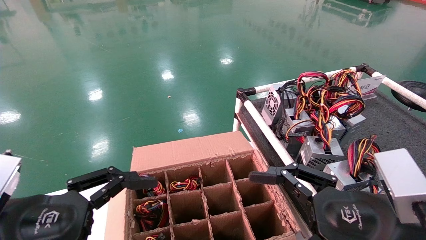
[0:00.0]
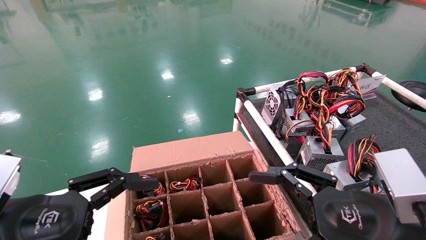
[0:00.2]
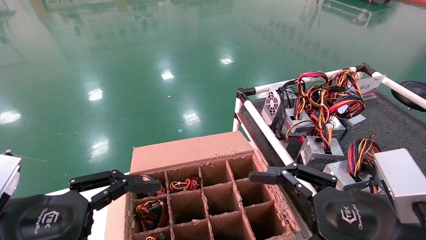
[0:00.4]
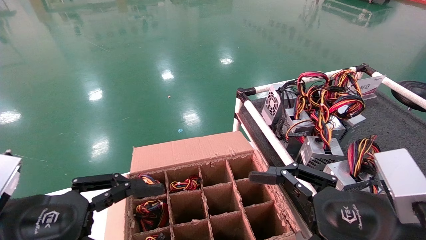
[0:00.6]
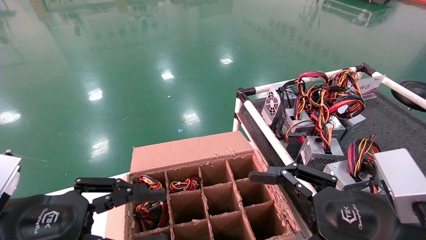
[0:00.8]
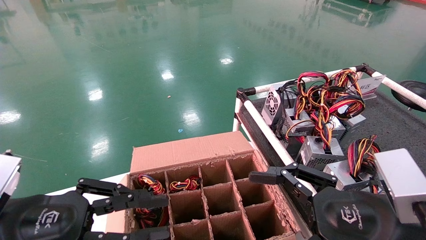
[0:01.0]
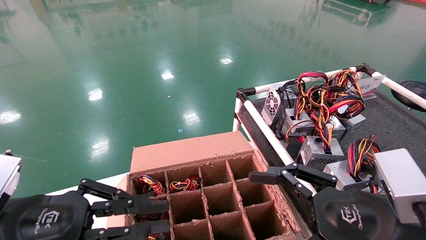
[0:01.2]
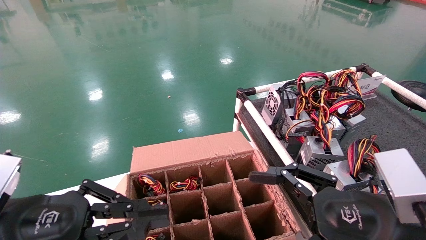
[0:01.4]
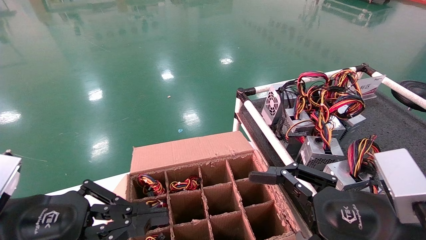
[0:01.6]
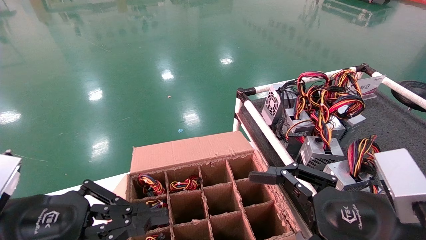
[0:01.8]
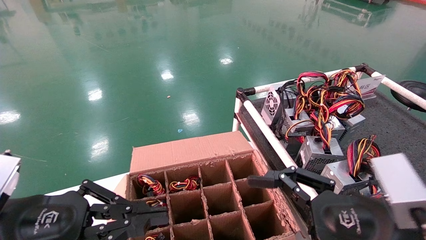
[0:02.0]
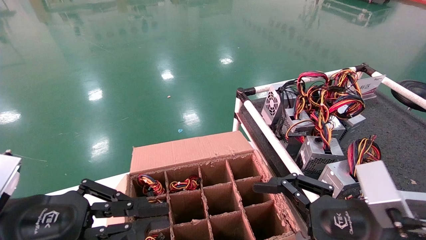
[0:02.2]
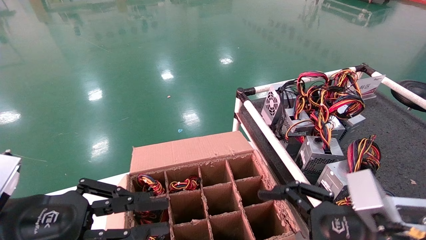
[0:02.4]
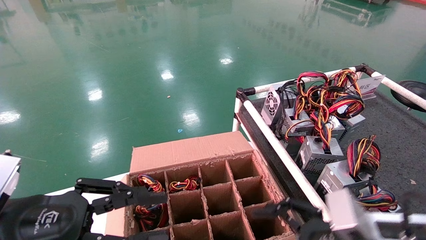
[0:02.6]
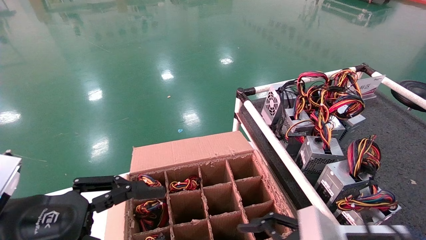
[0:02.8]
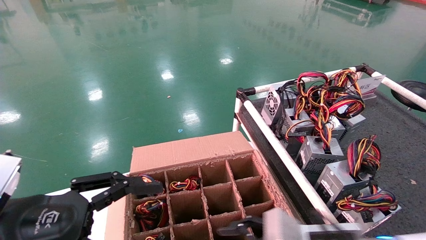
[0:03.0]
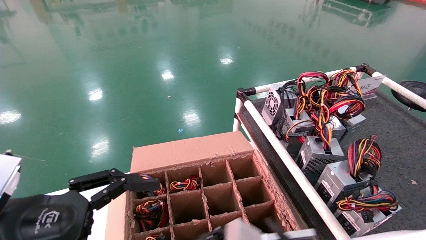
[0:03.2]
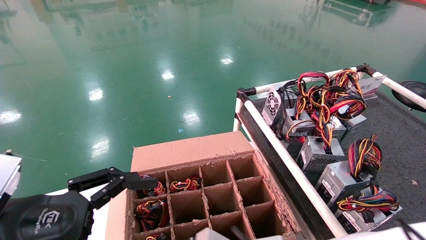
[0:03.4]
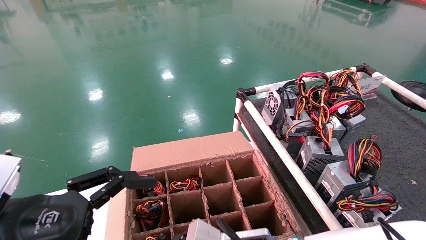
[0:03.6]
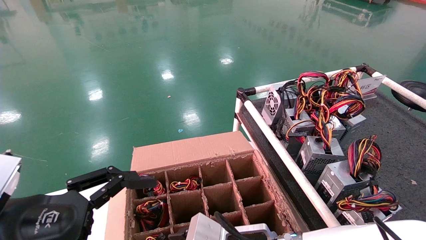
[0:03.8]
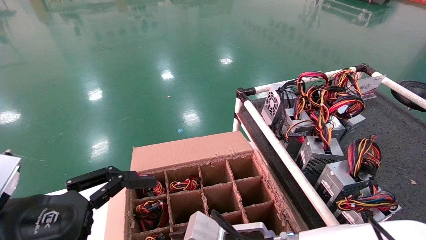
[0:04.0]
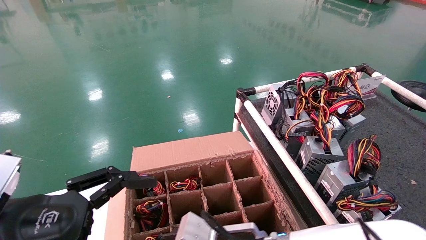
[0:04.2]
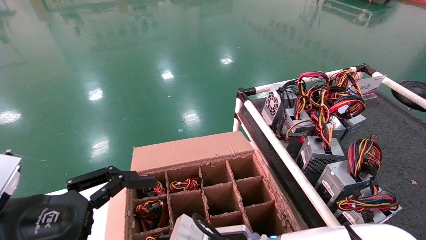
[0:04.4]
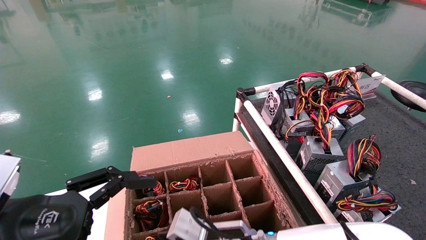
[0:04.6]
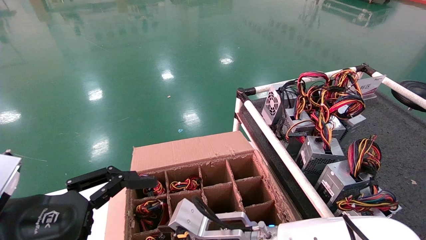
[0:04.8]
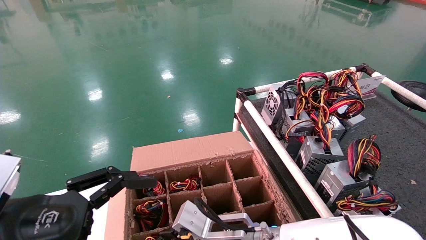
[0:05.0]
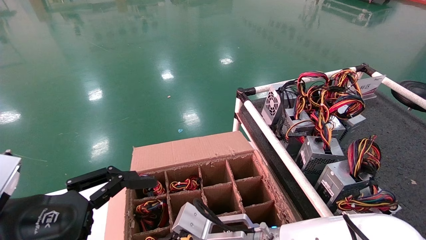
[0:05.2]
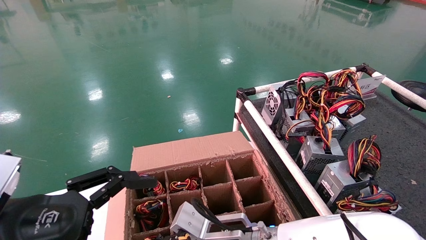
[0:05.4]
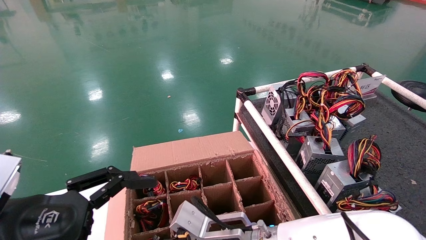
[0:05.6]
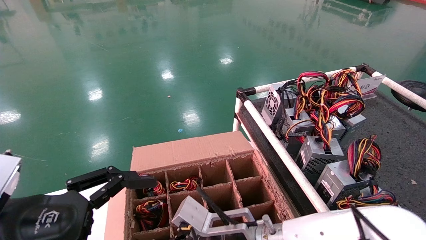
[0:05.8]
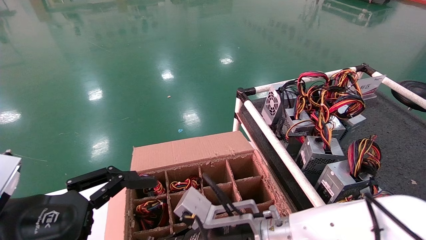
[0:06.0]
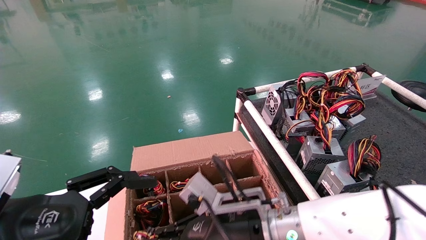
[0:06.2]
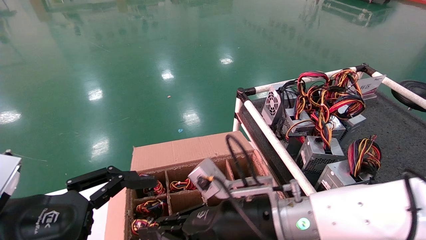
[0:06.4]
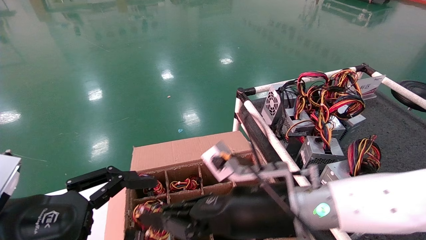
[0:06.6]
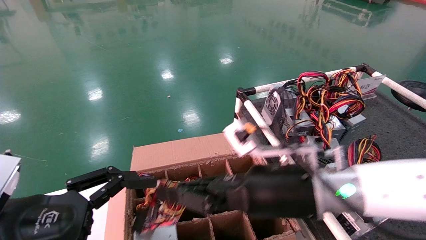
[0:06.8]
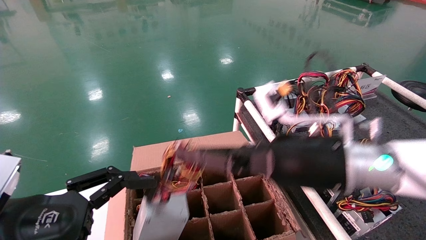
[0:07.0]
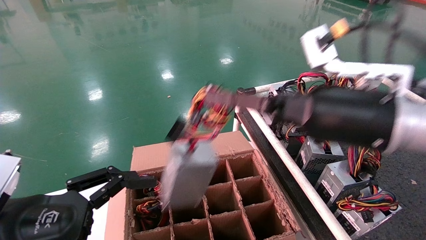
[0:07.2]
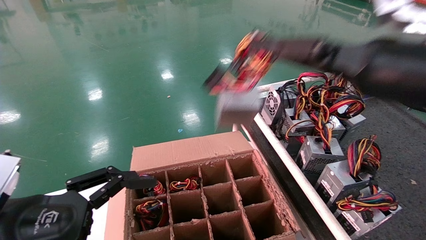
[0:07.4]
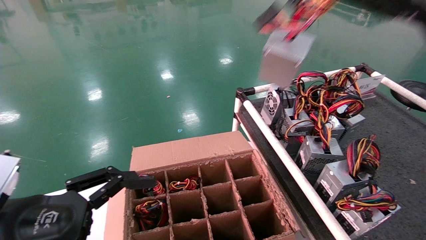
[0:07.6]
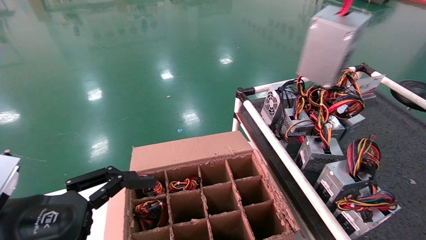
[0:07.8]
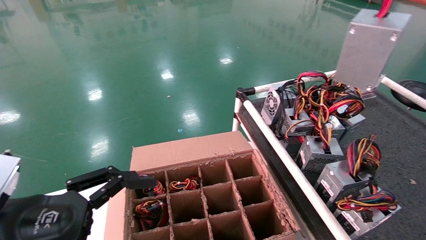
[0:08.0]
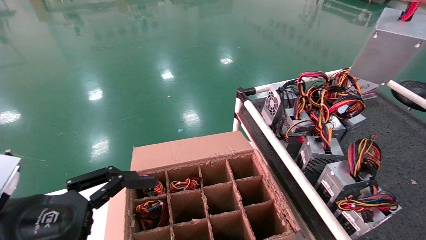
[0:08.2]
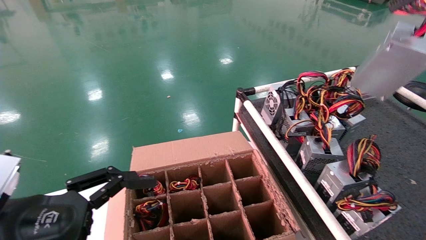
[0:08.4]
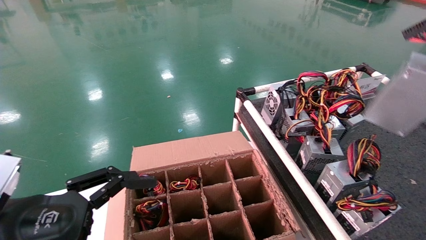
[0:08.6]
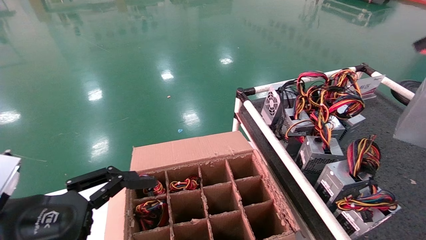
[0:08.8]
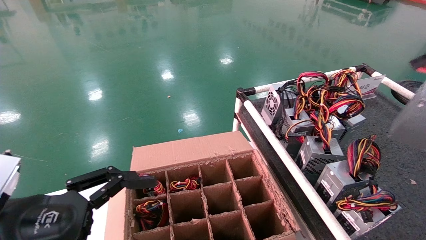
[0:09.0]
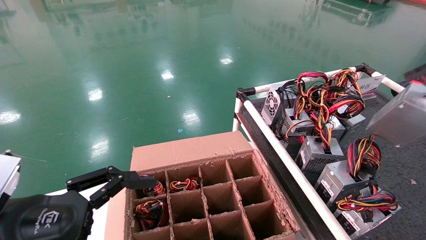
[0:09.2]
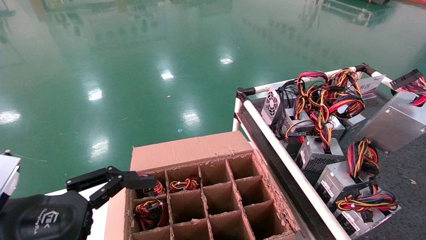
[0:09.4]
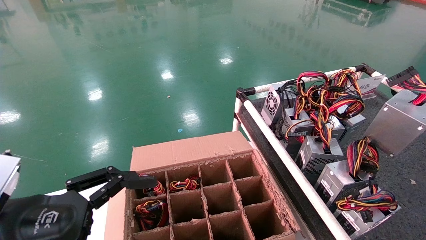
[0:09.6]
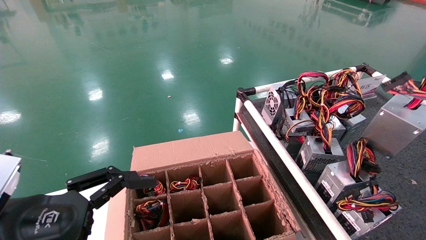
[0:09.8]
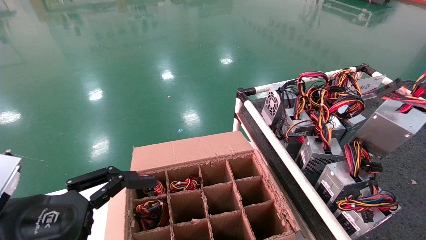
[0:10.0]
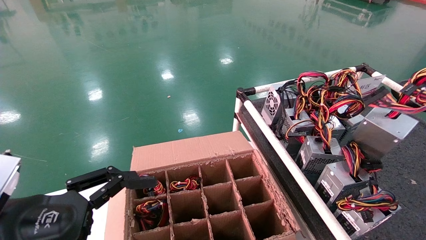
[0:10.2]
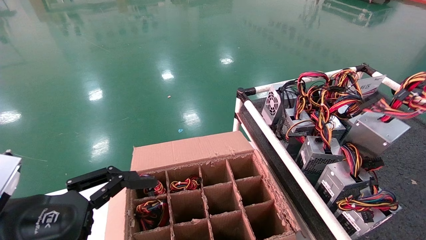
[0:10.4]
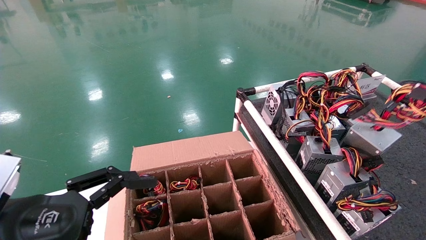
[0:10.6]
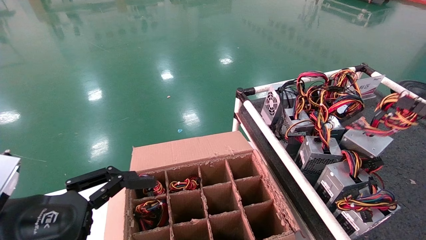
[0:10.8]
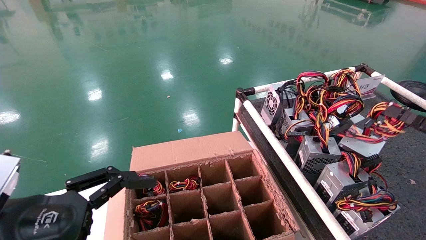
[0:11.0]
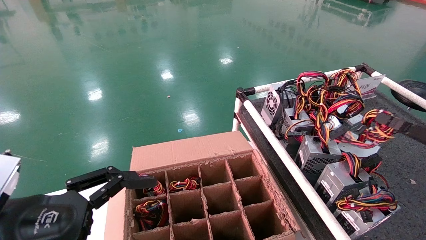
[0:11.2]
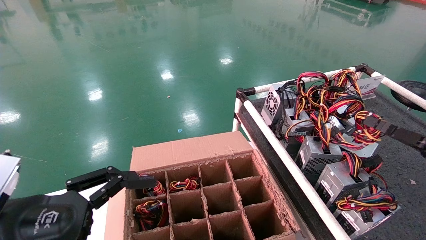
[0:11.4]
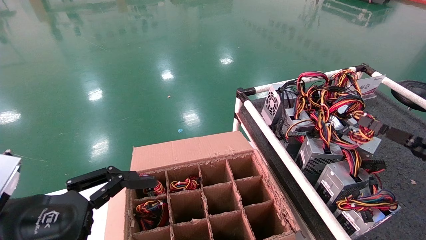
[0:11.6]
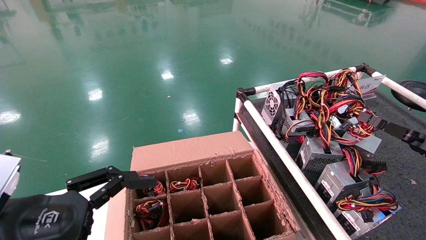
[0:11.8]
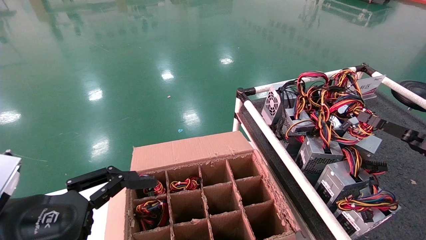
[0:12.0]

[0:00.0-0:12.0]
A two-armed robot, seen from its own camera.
Step, 0:02.4 to 0:05.6: Grab and lift the power supply from the large box.
0:00.0 to 0:01.6: The left gripper closes.
0:01.6 to 0:03.0: The left gripper opens, while the right gripper heads downward, to the left and forward, covering approximately 15 cm.
0:03.0 to 0:04.4: The right gripper goes about 15 cm to the left and forward; the left gripper opens up.
0:04.4 to 0:06.0: The right gripper closes its fingers.
0:06.0 to 0:07.6: The right gripper moves upward and to the right, about 40 cm.
0:07.6 to 0:09.0: The right gripper shifts some 25 cm to the right and downward.
0:09.0 to 0:10.4: The right gripper is displaced forward and downward by roughly 10 cm.
0:10.4 to 0:12.0: The right gripper heads forward and downward, covering approximately 10 cm.

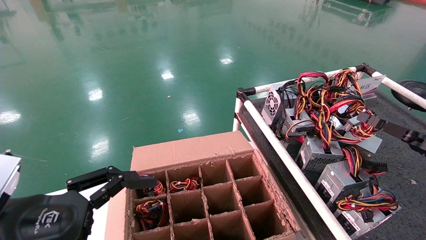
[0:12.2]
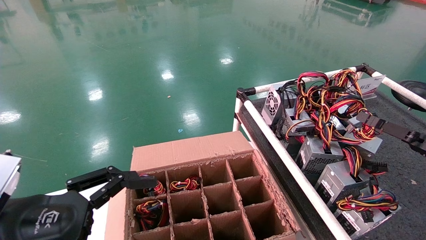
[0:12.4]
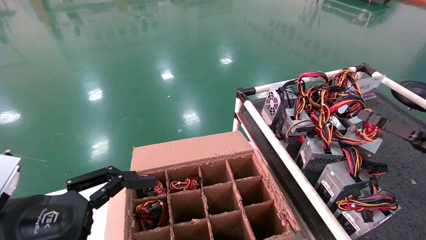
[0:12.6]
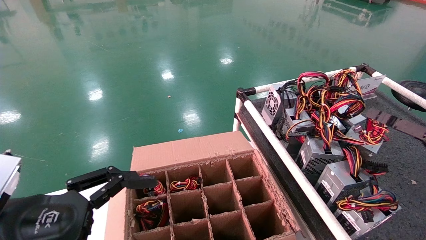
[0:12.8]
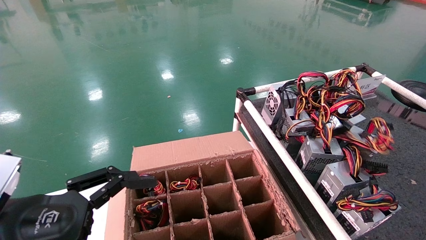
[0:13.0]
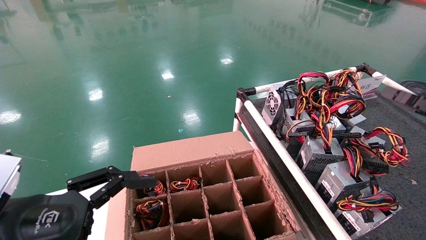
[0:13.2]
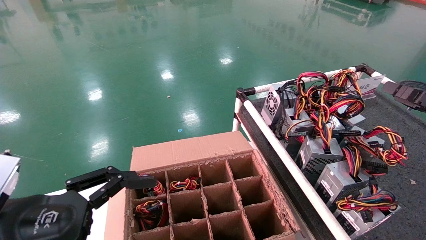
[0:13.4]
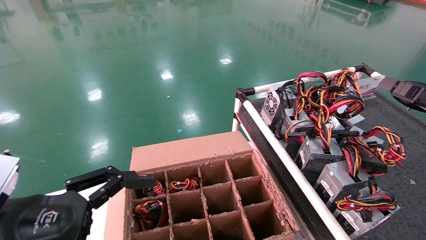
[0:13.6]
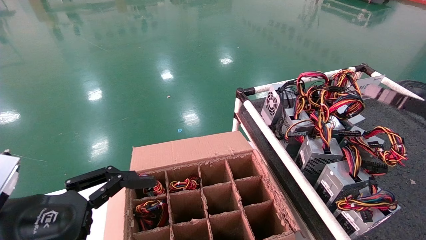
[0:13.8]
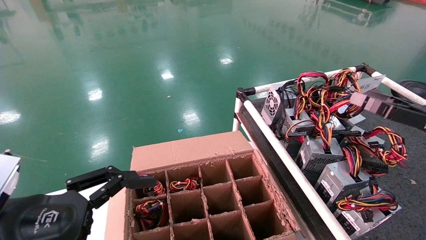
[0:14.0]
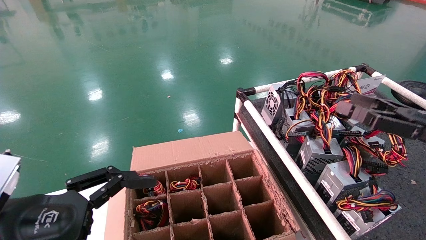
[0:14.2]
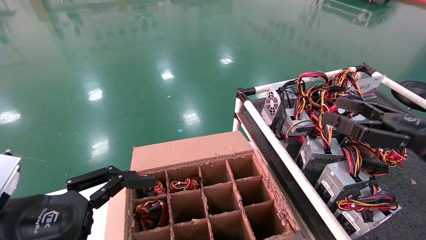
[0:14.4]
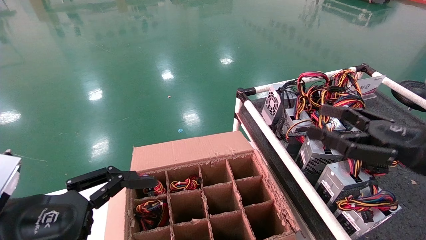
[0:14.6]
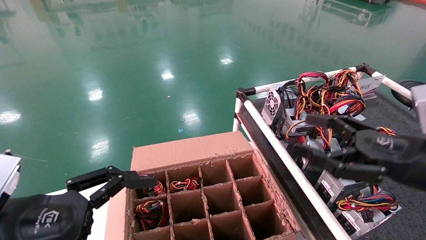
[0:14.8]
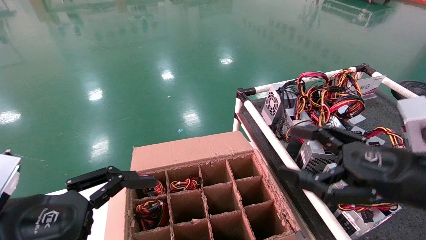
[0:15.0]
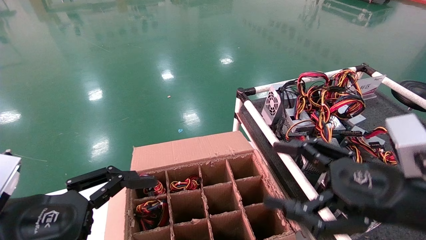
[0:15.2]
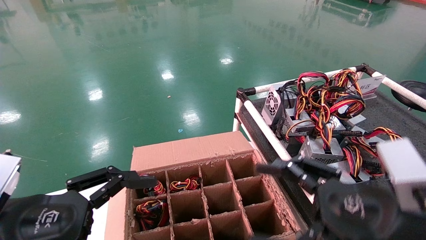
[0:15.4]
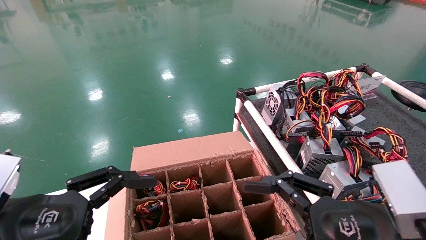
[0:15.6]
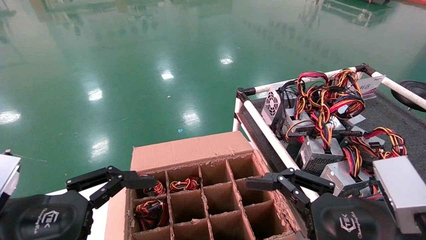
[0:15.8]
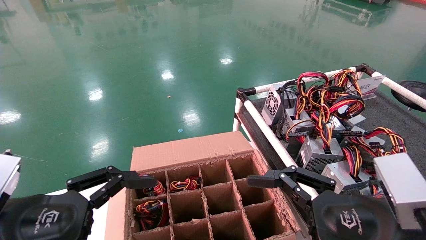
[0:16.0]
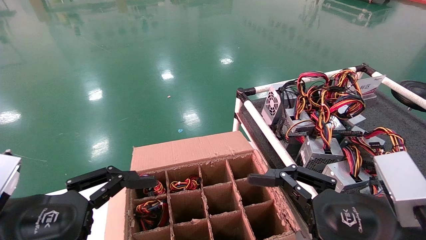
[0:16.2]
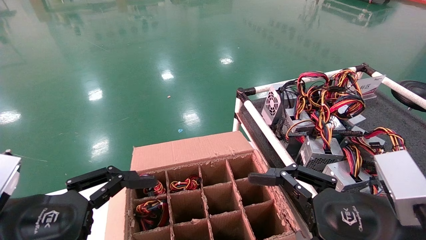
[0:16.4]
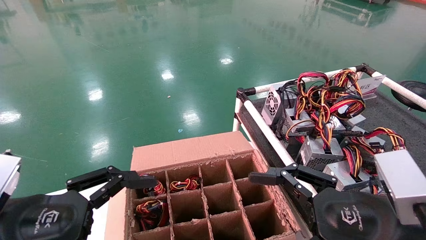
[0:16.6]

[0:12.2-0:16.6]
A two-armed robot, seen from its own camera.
0:12.2 to 0:13.6: The right gripper heads upward, covering approximately 5 cm, and opens its fingers.
0:13.6 to 0:15.2: The right gripper goes about 20 cm to the left.
0:15.2 to 0:16.6: There are only small adjustments of the grippers.
